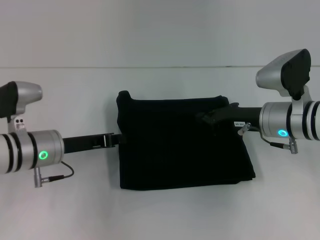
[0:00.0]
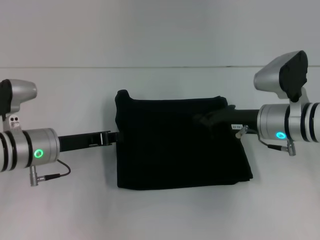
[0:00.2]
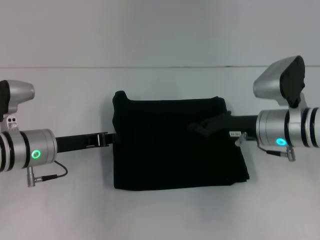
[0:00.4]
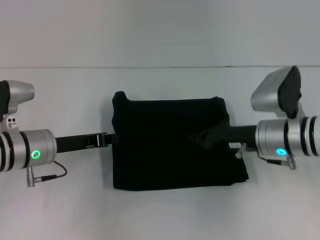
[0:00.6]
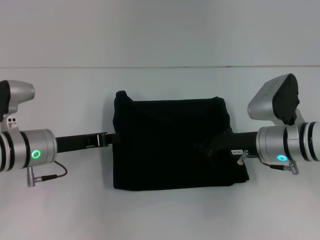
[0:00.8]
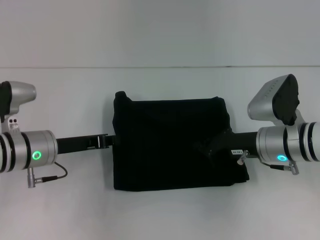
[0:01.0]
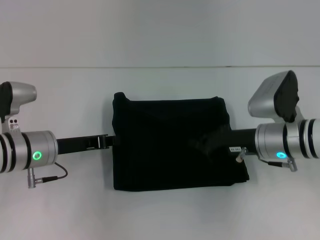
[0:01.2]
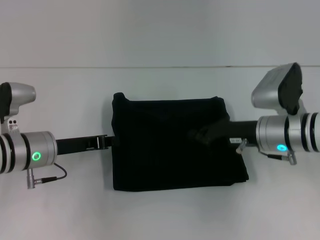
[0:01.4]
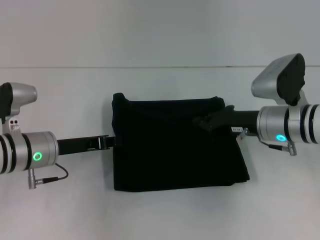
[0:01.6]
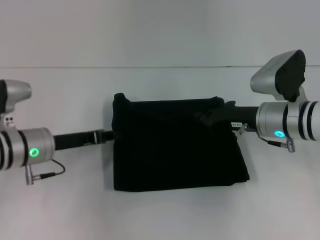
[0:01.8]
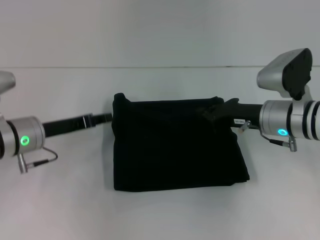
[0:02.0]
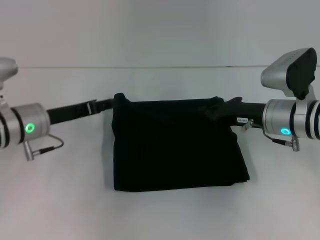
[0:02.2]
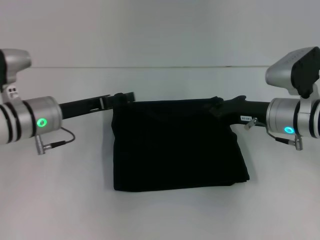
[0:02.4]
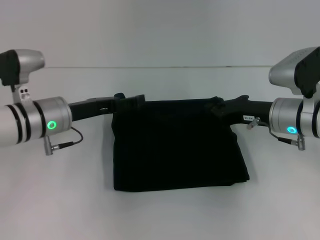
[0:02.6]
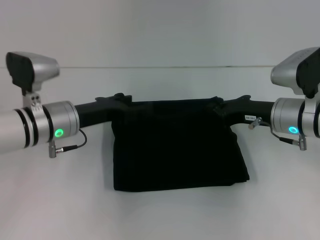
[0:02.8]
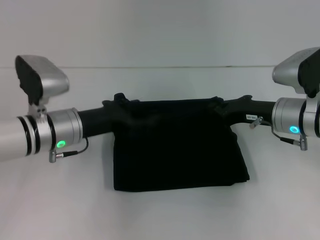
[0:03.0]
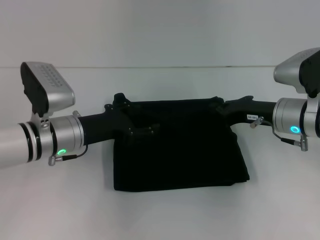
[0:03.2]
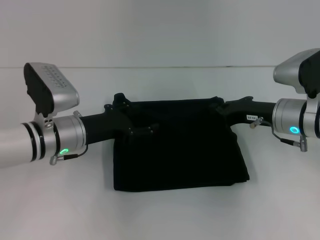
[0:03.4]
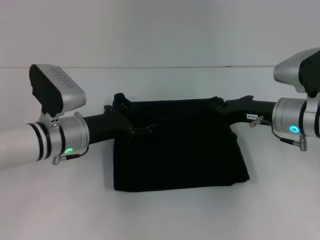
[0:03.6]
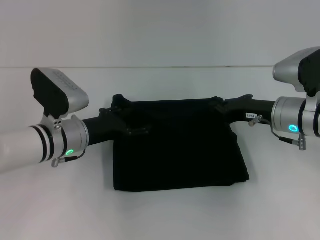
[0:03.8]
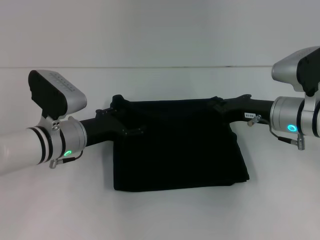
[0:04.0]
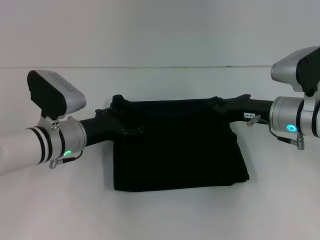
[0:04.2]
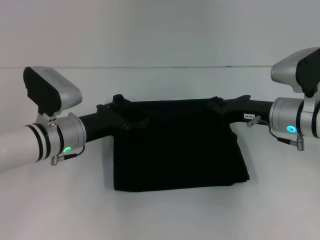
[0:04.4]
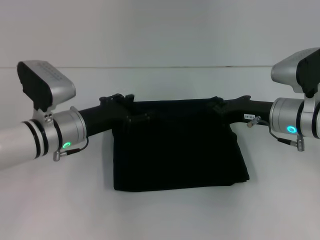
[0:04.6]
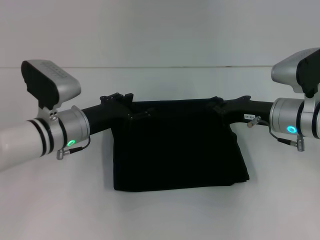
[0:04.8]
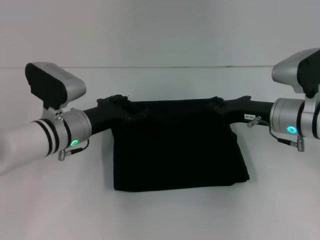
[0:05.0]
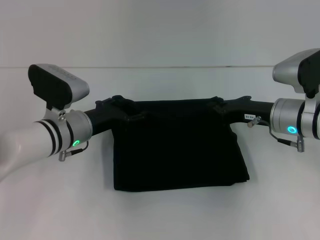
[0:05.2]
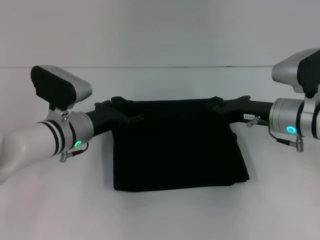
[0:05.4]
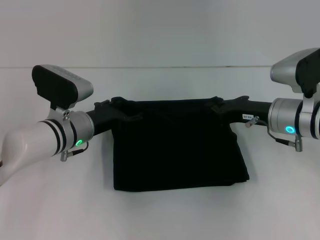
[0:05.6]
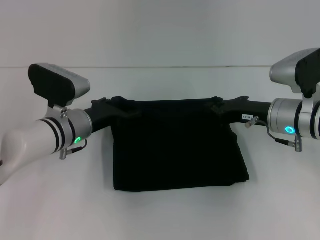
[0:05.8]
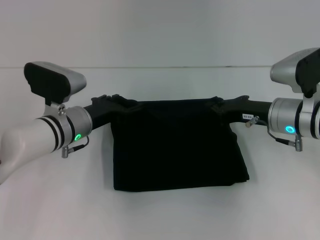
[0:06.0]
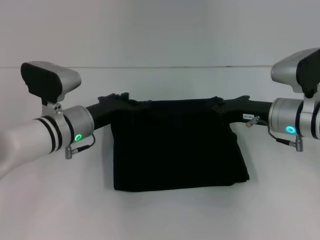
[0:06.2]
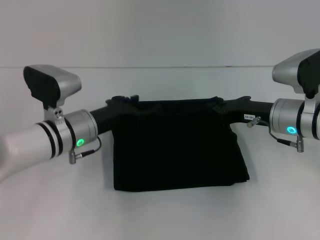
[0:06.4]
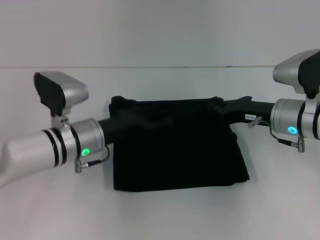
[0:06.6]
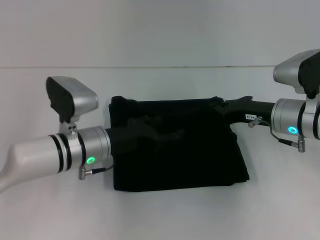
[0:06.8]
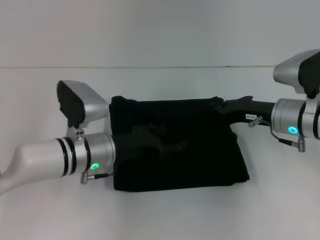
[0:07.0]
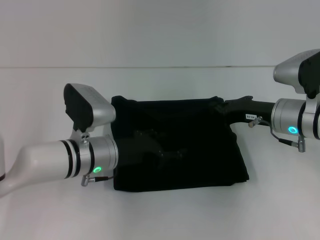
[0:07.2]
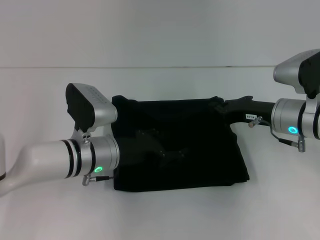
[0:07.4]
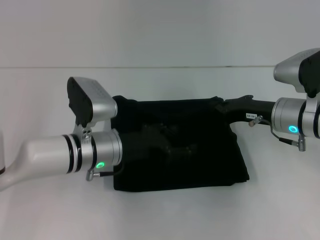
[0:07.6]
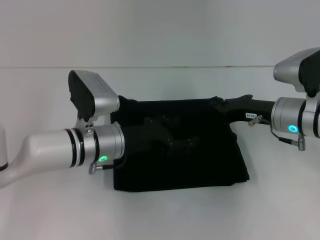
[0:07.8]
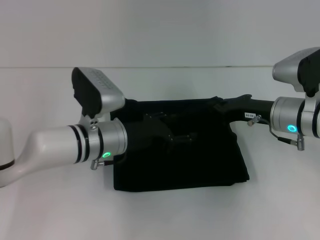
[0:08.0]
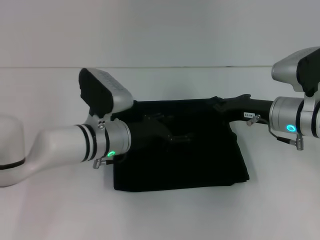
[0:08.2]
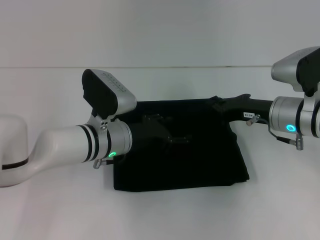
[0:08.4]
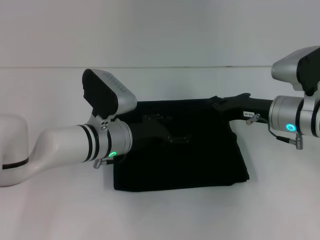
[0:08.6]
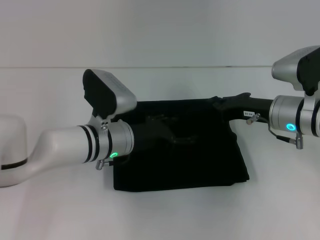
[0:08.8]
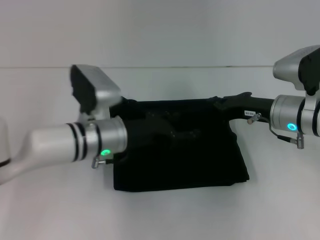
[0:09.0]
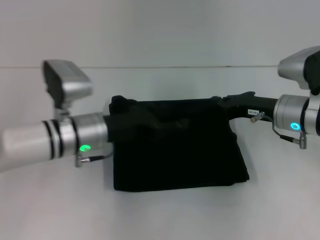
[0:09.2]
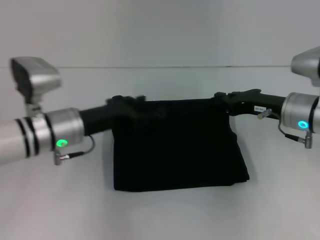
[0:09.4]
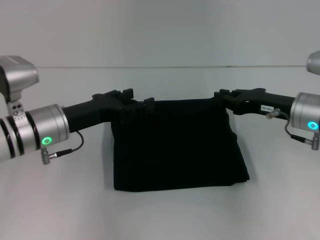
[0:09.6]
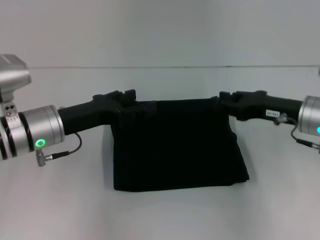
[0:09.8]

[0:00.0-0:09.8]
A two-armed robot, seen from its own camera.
0:00.0 to 0:01.4: The grippers move only a little.
0:01.4 to 0:02.8: The left gripper ends up some 5 cm from where it was, and opens its fingers.
0:04.2 to 0:05.6: The grippers make only small movements.
0:07.0 to 0:08.4: The grippers make only small movements.
0:08.4 to 0:09.8: The left gripper is displaced to the left by about 10 cm.

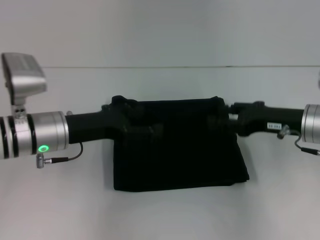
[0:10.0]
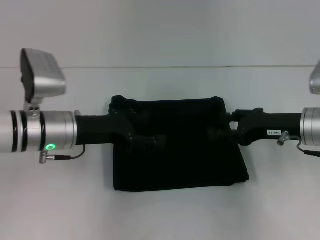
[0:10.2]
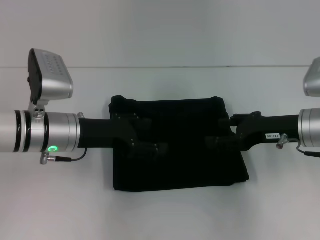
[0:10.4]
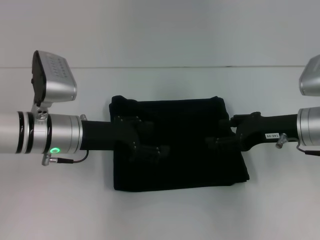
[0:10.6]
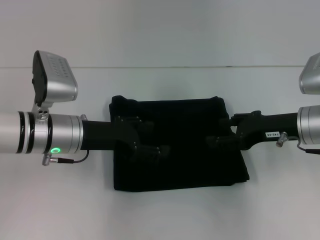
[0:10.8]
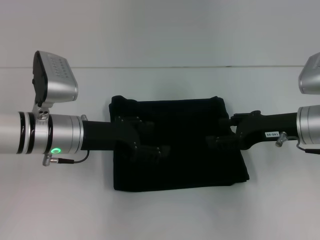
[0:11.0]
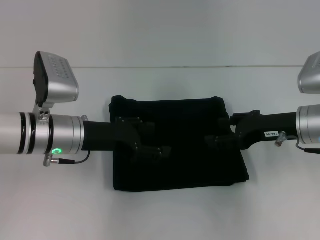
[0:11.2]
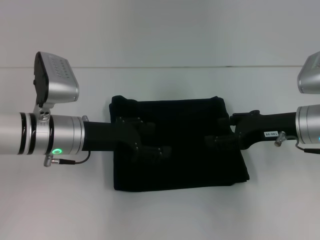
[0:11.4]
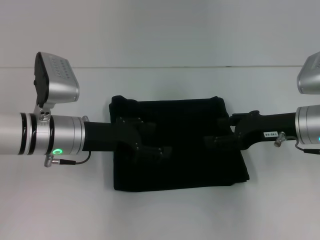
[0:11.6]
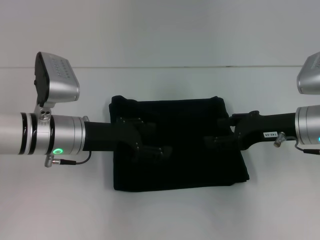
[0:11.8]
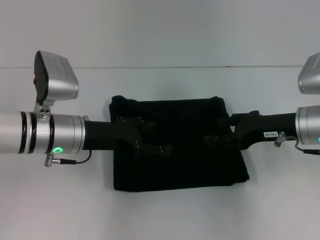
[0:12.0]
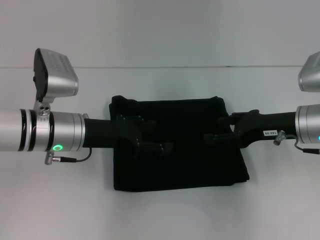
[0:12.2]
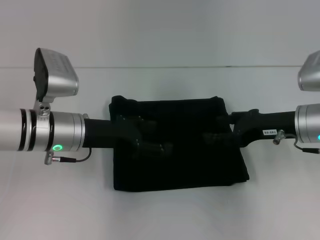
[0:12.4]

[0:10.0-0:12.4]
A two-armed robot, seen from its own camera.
0:10.0 to 0:11.2: The right gripper opens up.
0:11.2 to 0:12.4: The two grippers keep their place.

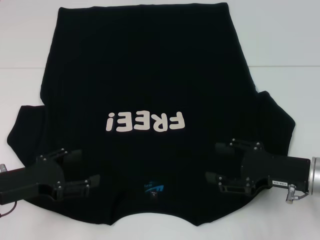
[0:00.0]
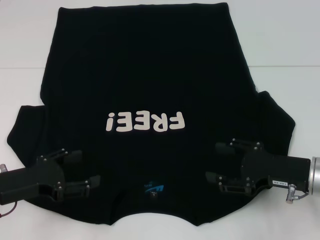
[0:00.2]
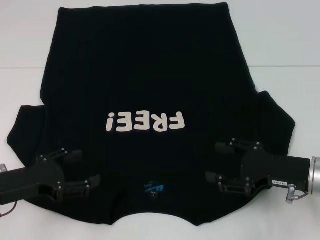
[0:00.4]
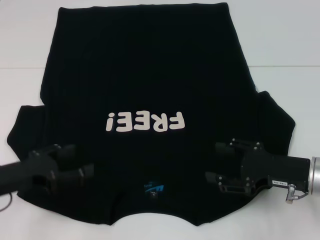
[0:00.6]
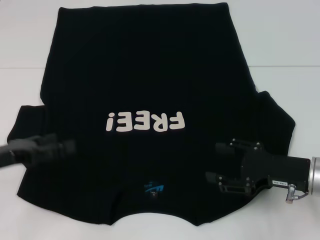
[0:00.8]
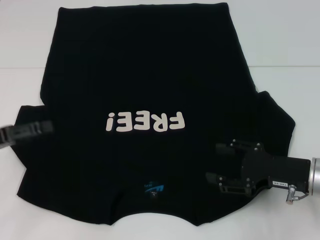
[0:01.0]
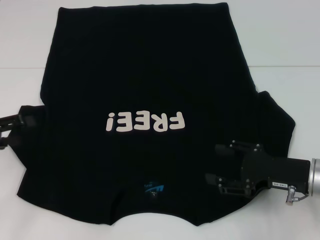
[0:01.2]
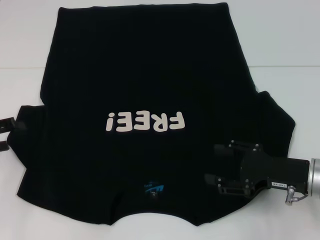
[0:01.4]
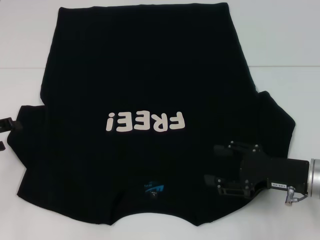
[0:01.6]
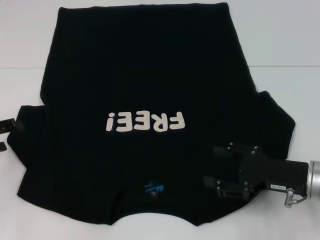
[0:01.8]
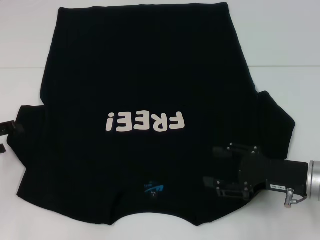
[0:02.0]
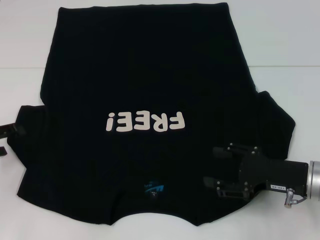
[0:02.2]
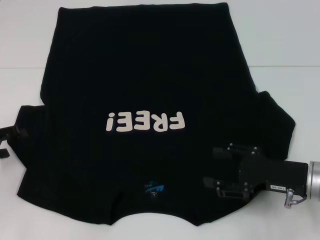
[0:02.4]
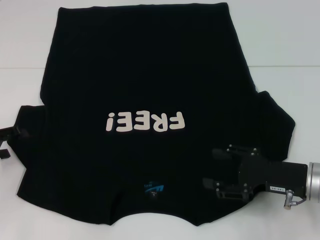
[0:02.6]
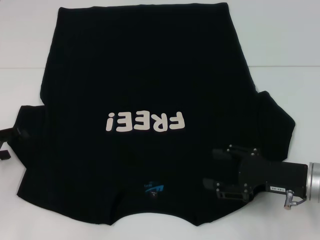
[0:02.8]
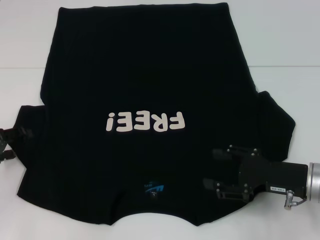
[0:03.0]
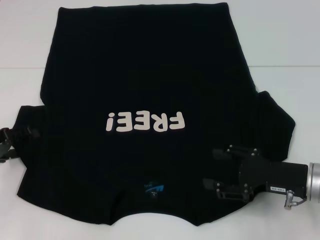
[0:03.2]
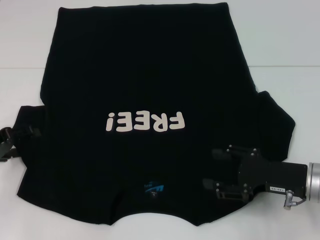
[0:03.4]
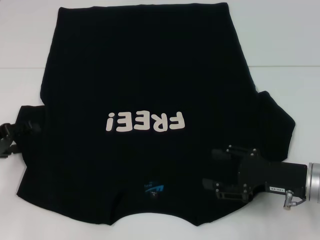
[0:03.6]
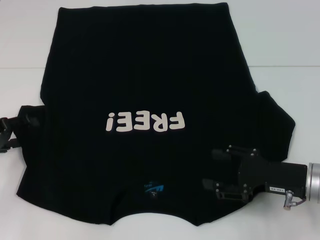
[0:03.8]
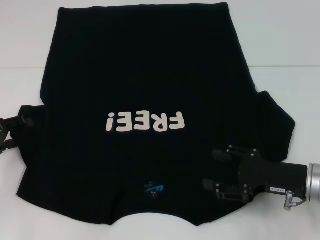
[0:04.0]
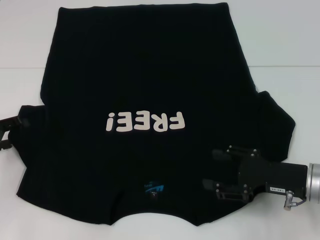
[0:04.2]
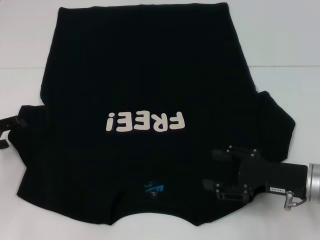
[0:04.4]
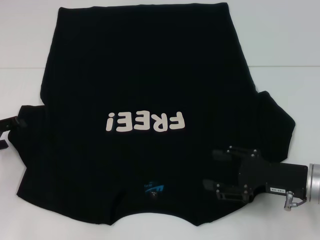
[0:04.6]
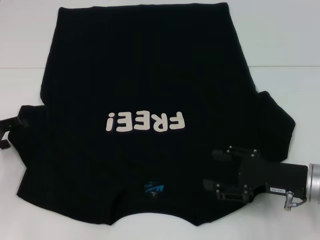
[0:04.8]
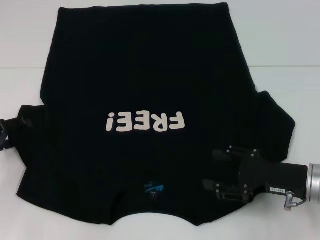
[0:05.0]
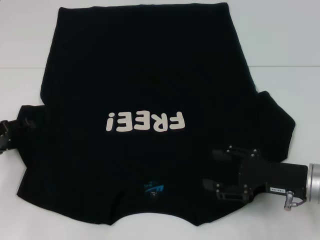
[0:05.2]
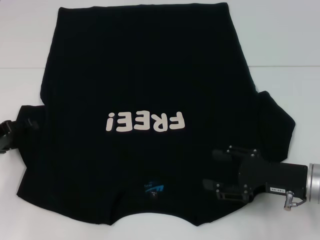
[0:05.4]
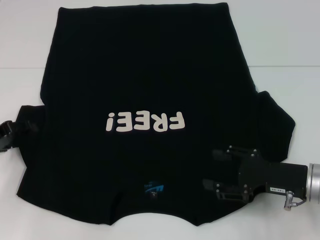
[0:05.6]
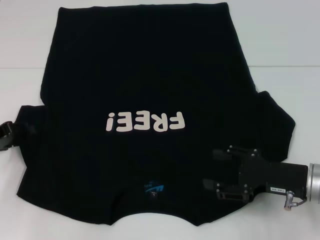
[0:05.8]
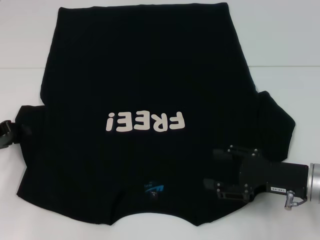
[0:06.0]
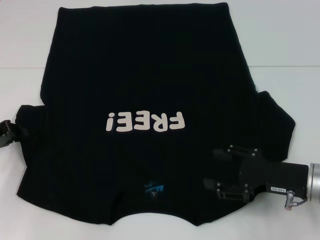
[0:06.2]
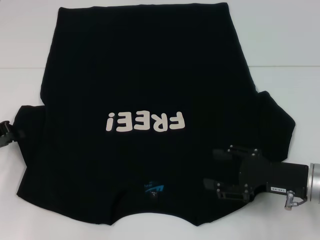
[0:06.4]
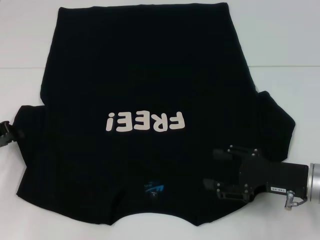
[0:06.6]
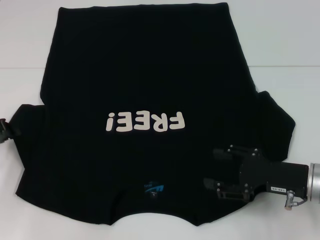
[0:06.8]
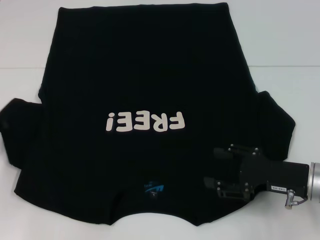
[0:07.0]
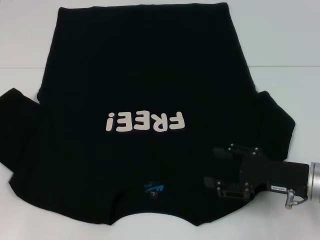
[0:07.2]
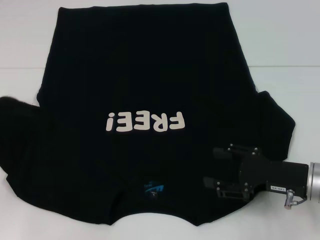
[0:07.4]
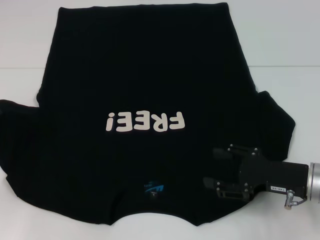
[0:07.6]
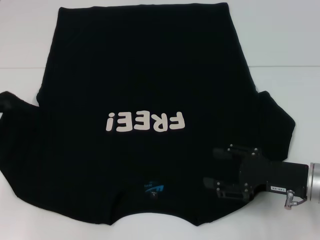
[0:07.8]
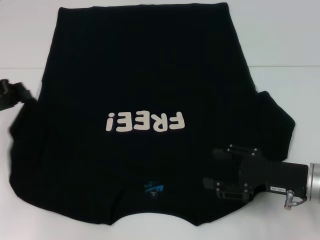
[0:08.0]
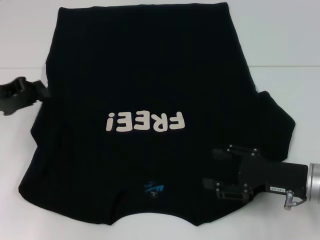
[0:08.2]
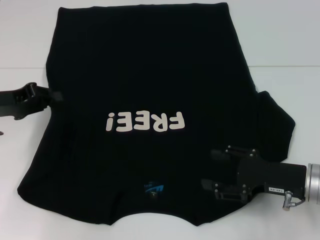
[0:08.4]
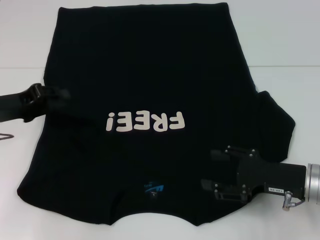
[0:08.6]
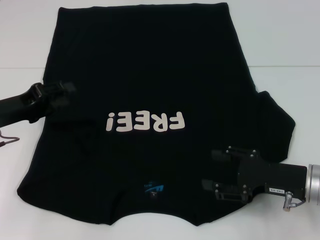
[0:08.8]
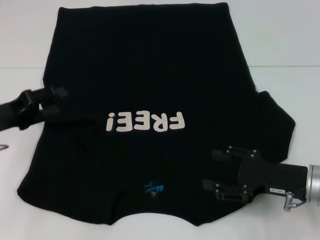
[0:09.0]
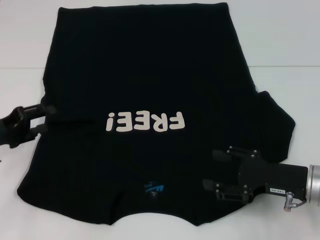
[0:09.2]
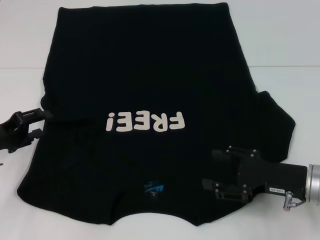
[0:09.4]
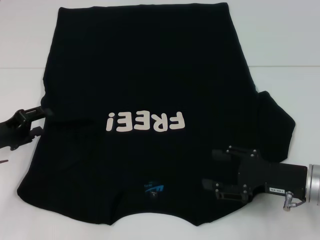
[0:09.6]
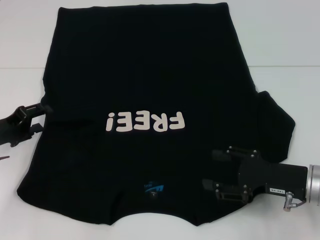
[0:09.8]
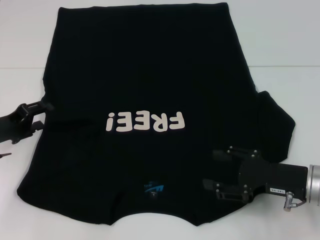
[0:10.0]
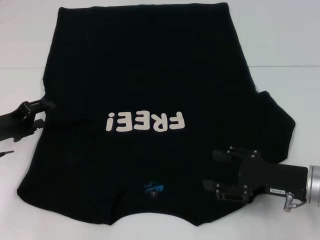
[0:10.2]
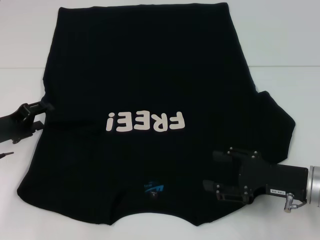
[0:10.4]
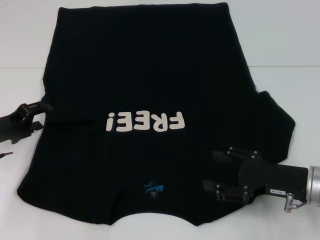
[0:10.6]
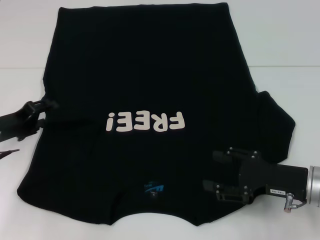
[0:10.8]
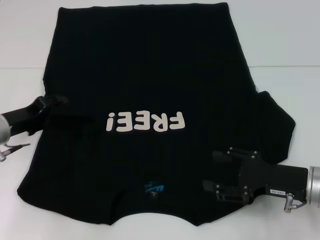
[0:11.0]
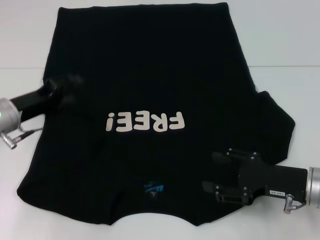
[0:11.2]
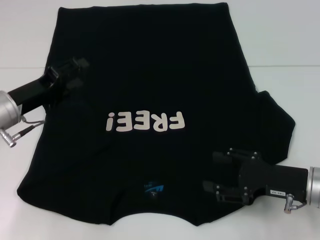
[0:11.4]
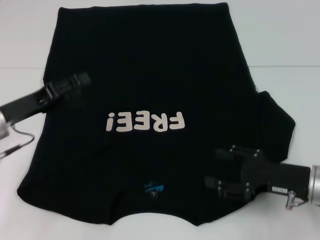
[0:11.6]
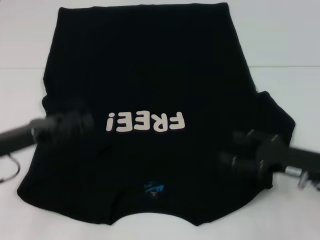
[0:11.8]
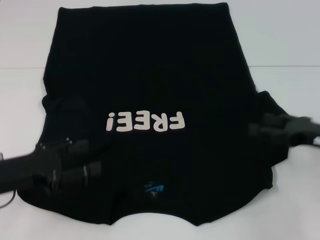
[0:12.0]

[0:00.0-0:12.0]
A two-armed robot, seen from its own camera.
Step, 0:00.0 to 0:08.8: Fold the bottom left sleeve with your left hand.
0:00.0 to 0:01.6: The left gripper shifts approximately 10 cm to the left.
0:01.6 to 0:04.4: The grippers stay close to where they were, moving slightly.
0:04.4 to 0:06.0: The left gripper closes.
0:06.0 to 0:07.6: The left gripper changes place by approximately 5 cm, and closes its fingers.
0:07.6 to 0:09.0: The left gripper heads to the right, covering approximately 5 cm, and opens its fingers.
0:09.0 to 0:10.4: The grippers make only small movements.
0:10.4 to 0:12.0: The left gripper goes some 10 cm backward. The right gripper travels to the right by some 5 cm.
